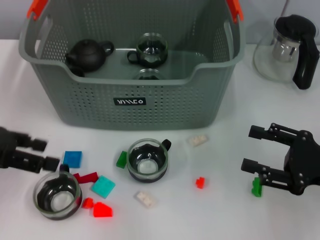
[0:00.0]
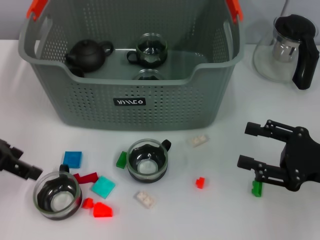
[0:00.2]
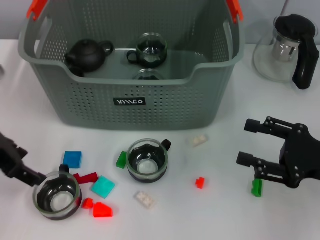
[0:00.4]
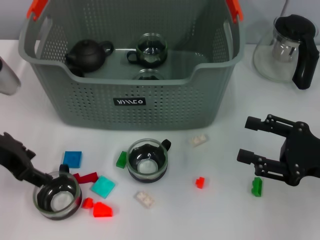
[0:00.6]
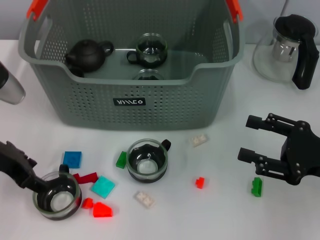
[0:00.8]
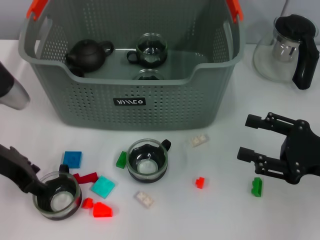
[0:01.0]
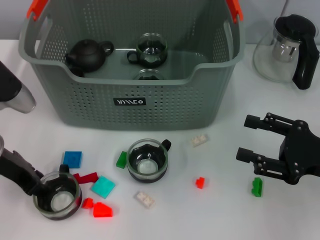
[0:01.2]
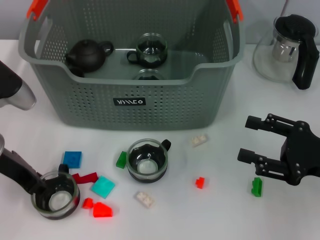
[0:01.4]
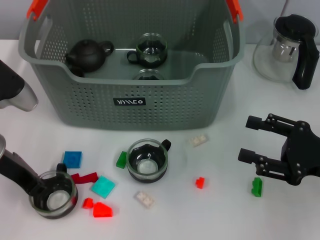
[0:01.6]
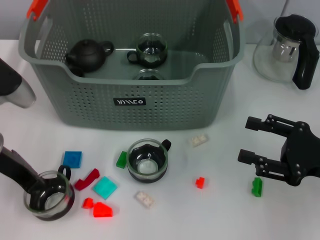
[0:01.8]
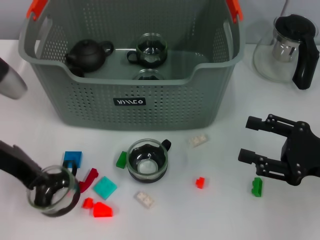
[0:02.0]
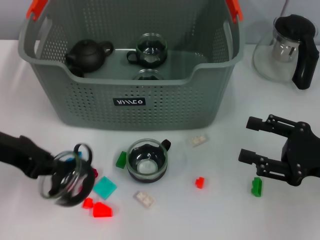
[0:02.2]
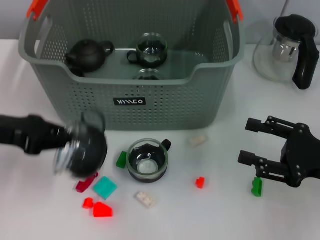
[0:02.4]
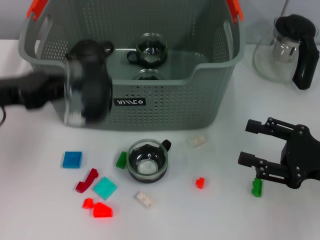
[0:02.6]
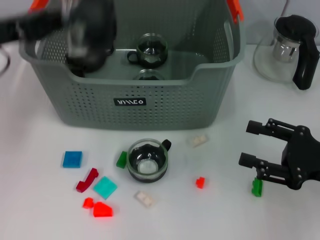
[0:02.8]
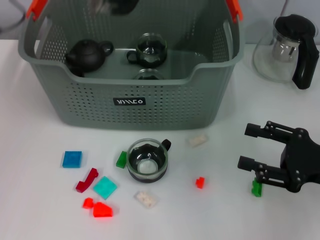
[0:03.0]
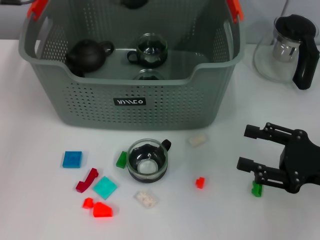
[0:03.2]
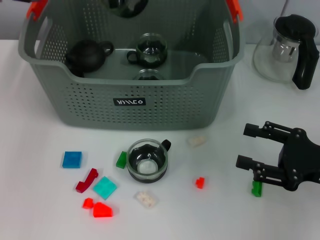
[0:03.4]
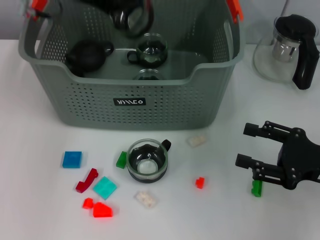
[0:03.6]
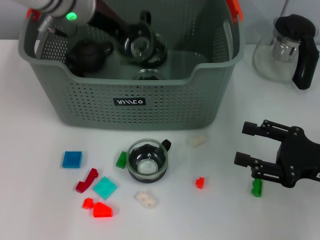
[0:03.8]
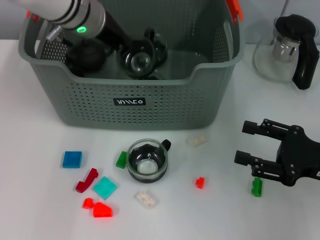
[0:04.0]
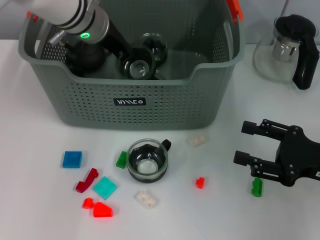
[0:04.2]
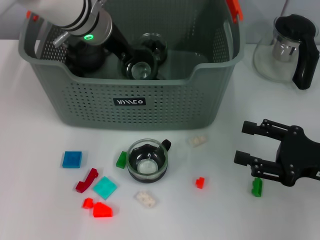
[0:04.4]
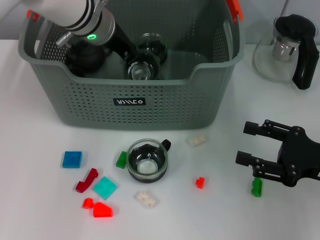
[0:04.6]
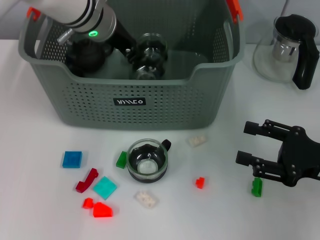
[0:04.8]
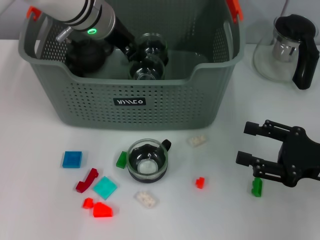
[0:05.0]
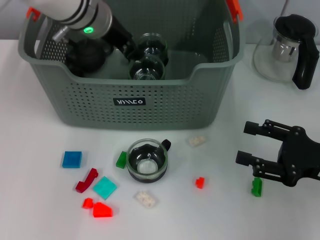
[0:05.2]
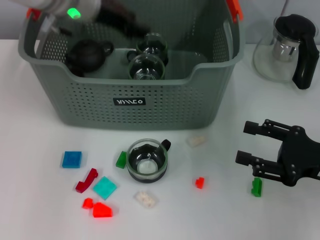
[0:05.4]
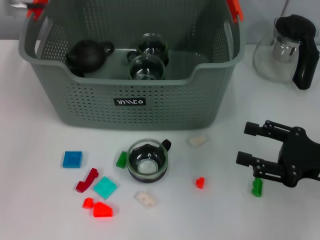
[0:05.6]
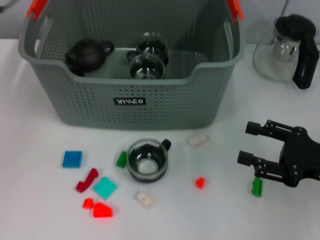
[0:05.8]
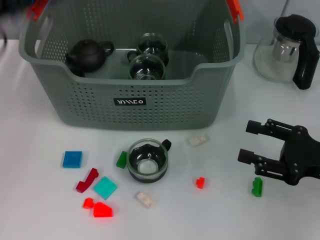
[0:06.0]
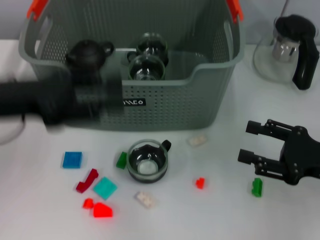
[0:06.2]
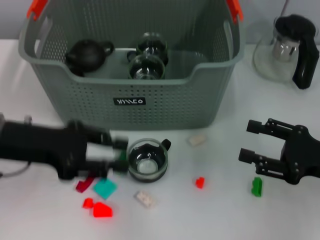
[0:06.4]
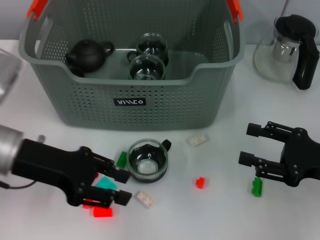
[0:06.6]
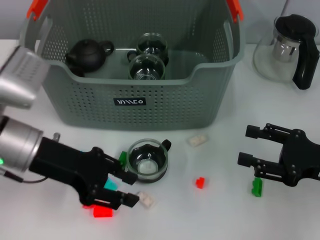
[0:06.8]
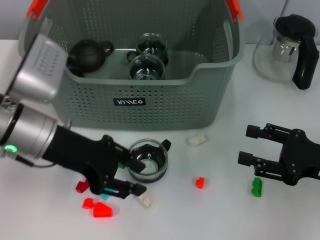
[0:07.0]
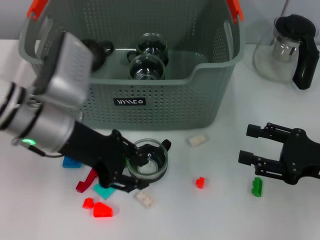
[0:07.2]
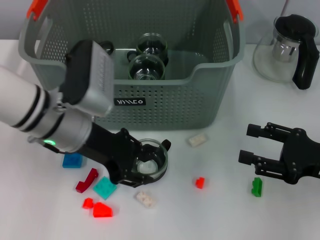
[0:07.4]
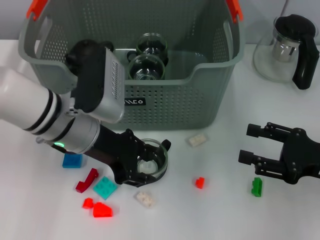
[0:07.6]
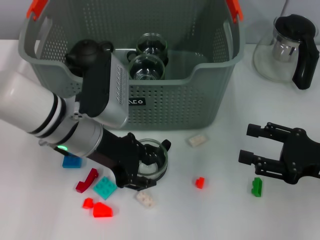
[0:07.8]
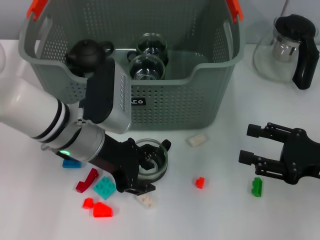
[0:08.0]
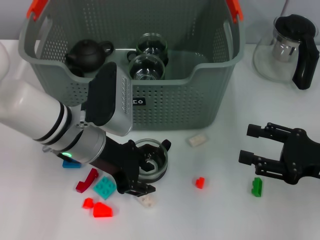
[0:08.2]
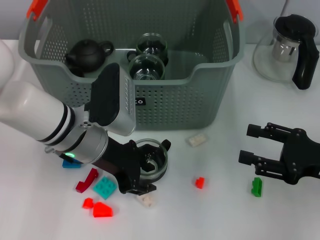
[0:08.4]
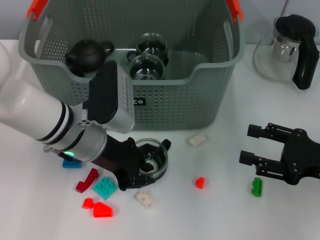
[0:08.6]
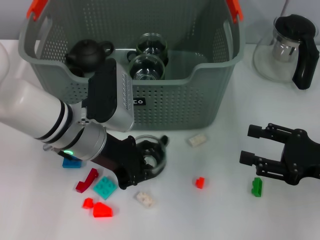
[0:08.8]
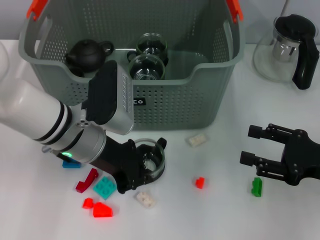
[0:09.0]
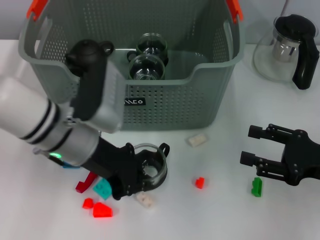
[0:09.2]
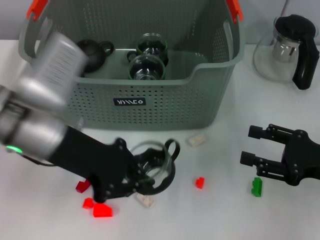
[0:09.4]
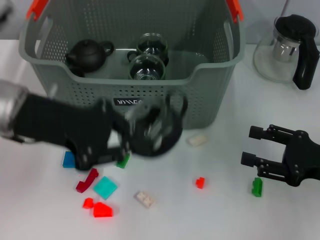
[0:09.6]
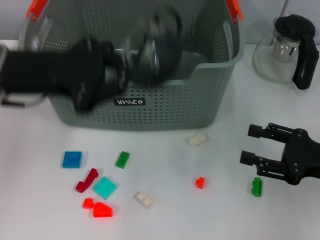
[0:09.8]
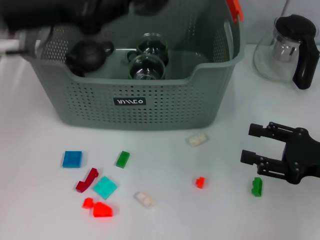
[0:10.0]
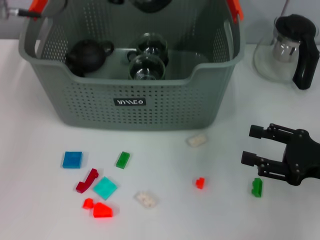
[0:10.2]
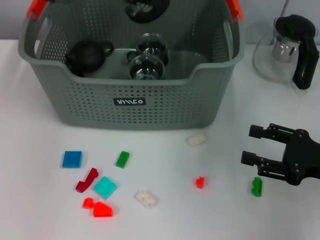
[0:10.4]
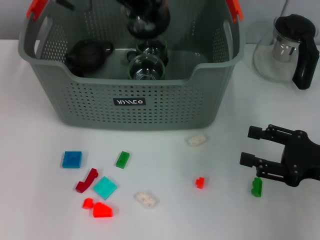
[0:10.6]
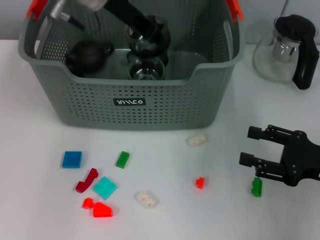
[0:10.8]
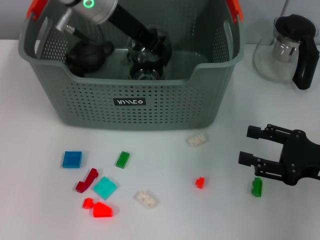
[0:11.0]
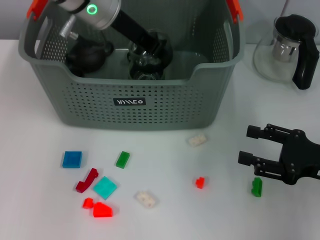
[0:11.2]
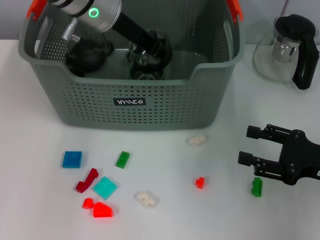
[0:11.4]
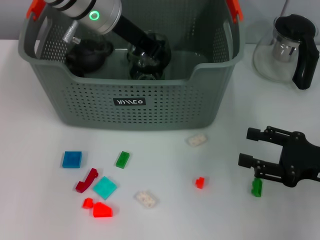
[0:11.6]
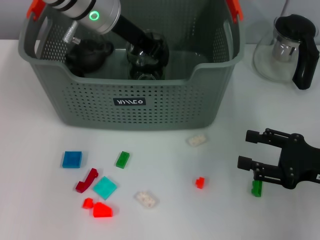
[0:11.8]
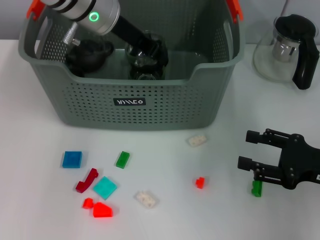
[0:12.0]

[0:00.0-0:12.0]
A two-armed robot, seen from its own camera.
Task of the whole recording: pick up the teacup on the table and place it into the storage bin, pick up the block on the table and place it into the storage bin.
Step, 0:00.0 to 0:01.6: Grasp the cup with left gripper.
Step, 0:01.8 to 0:05.6: Place the cup in the storage box with left gripper.
Step, 0:06.0 to 0:09.0: Grasp the cup with left gripper.
0:00.0 to 0:01.6: The left gripper moves to the right and downward, approximately 10 cm, and closes.
0:01.6 to 0:03.0: The left gripper heads upward and forward, covering about 15 cm, and closes.
0:03.0 to 0:04.4: The left gripper shifts some 15 cm to the right, downward and forward.
0:04.4 to 0:06.0: The left gripper heads to the left and backward, covering roughly 20 cm, and opens up.
0:06.0 to 0:07.6: The left gripper moves to the right and downward, approximately 15 cm.
0:07.6 to 0:09.0: The left gripper closes its fingers.
0:09.0 to 0:10.4: The left gripper goes some 20 cm upward and forward.
0:10.4 to 0:12.0: The left gripper moves downward, roughly 10 cm.

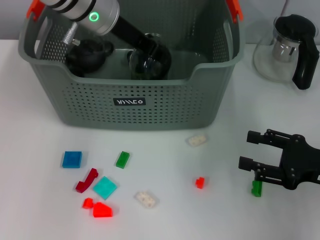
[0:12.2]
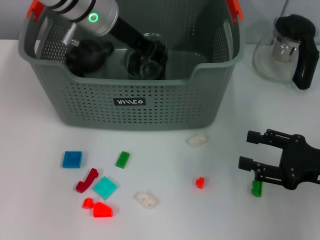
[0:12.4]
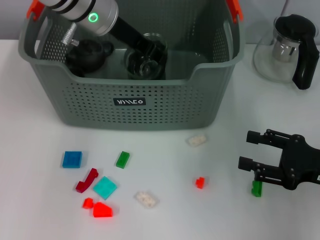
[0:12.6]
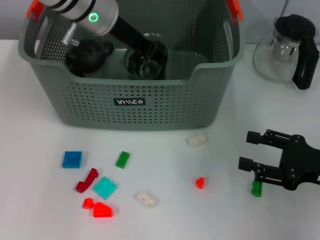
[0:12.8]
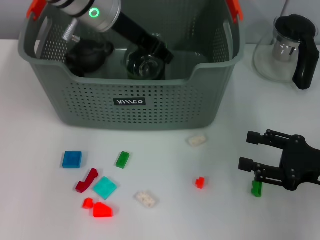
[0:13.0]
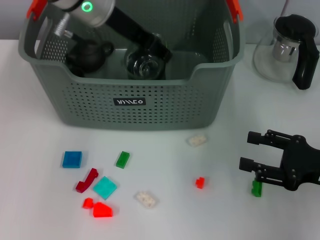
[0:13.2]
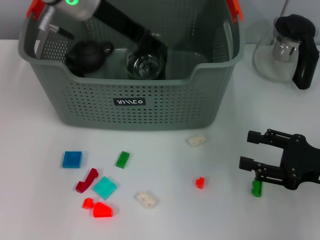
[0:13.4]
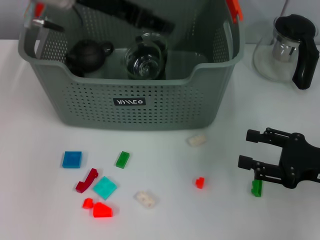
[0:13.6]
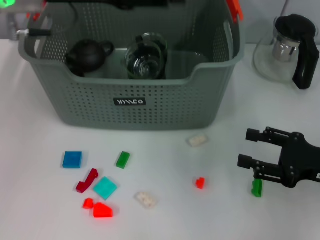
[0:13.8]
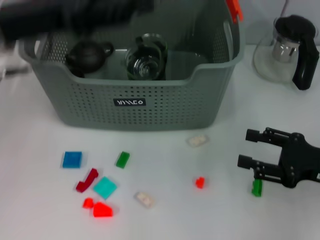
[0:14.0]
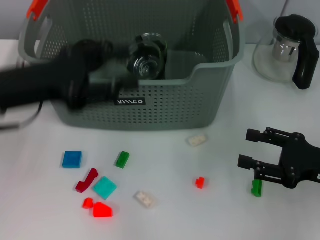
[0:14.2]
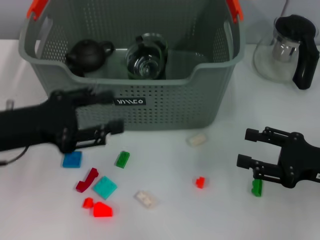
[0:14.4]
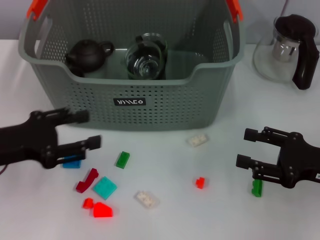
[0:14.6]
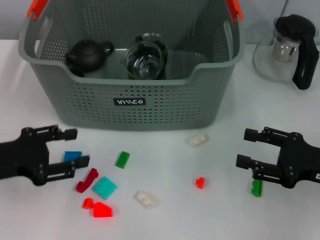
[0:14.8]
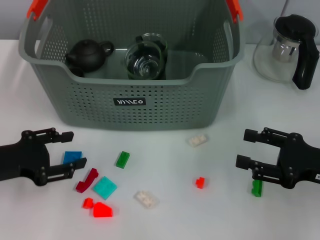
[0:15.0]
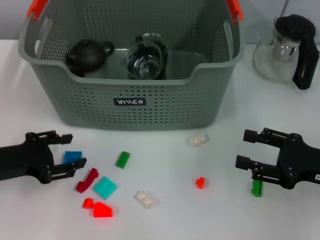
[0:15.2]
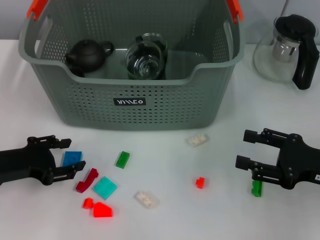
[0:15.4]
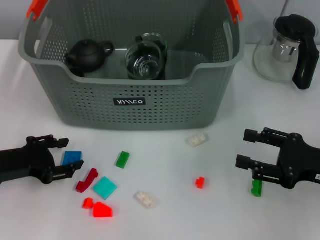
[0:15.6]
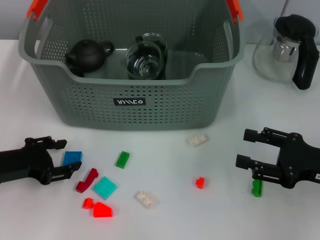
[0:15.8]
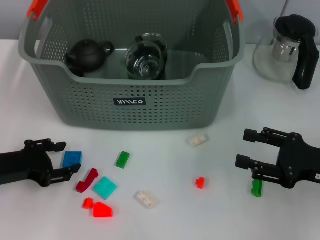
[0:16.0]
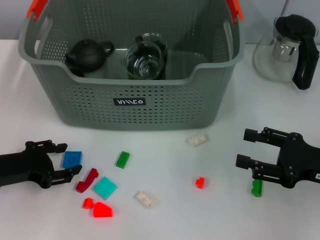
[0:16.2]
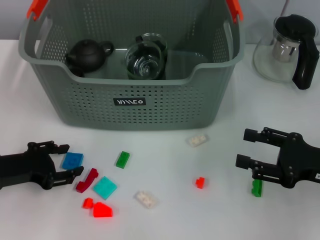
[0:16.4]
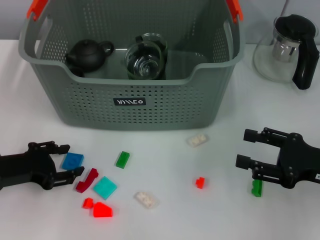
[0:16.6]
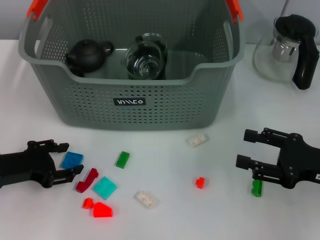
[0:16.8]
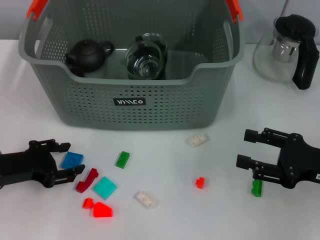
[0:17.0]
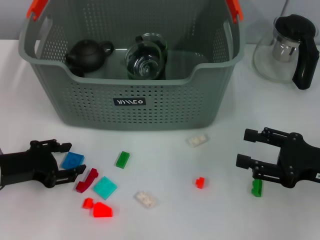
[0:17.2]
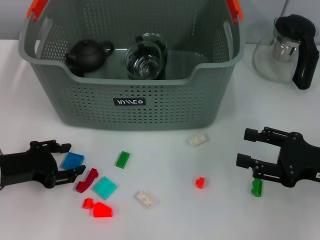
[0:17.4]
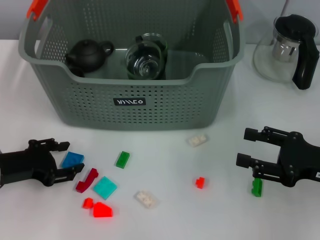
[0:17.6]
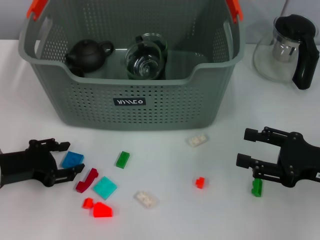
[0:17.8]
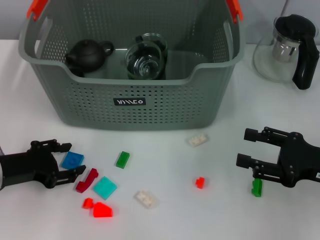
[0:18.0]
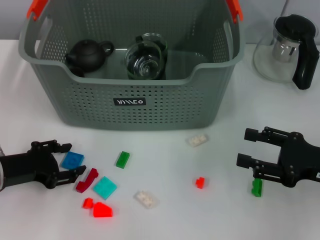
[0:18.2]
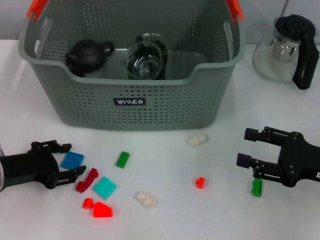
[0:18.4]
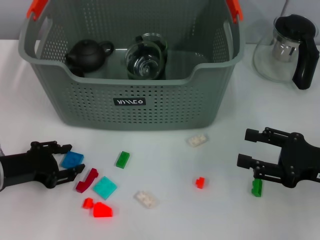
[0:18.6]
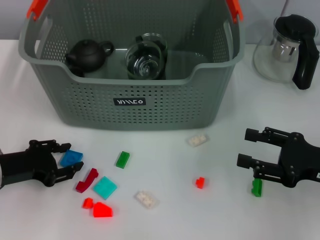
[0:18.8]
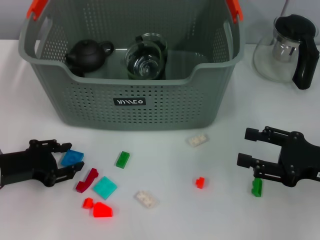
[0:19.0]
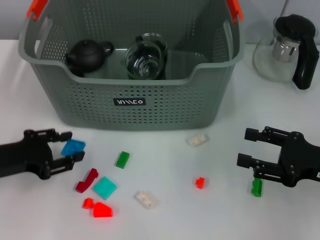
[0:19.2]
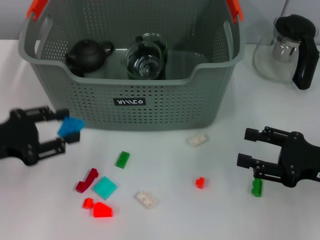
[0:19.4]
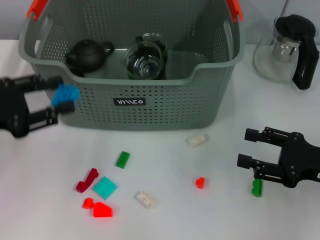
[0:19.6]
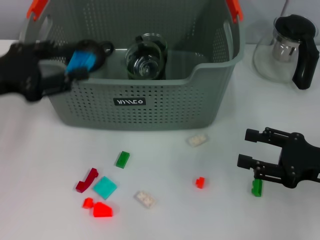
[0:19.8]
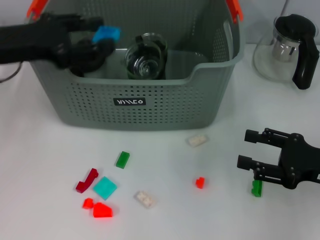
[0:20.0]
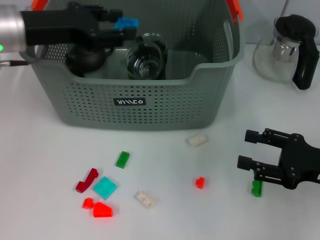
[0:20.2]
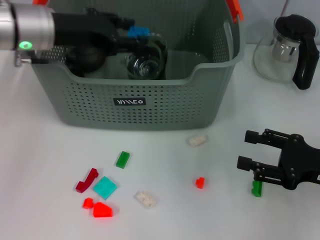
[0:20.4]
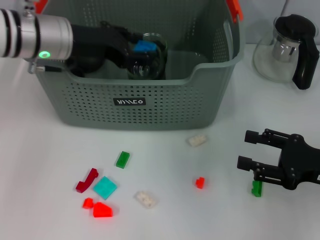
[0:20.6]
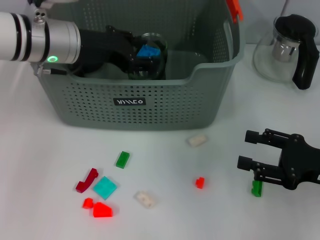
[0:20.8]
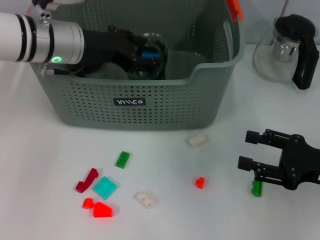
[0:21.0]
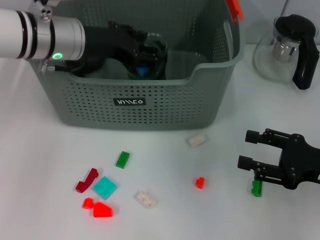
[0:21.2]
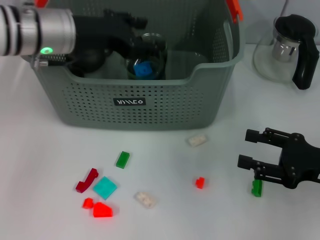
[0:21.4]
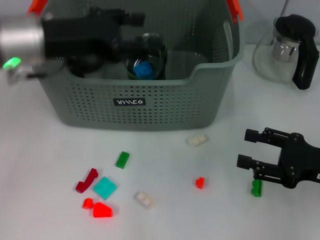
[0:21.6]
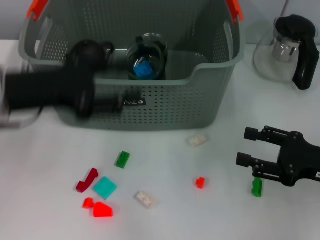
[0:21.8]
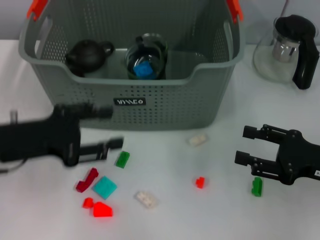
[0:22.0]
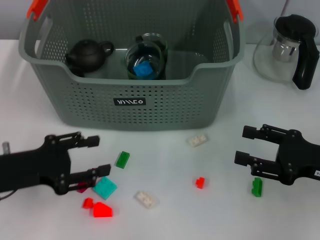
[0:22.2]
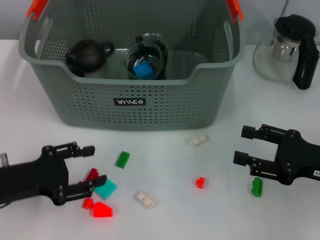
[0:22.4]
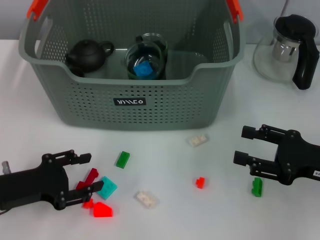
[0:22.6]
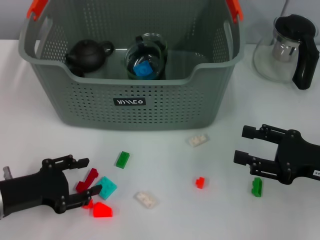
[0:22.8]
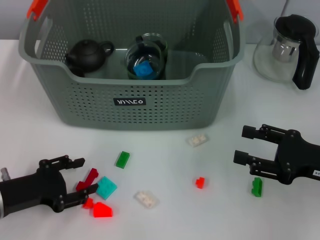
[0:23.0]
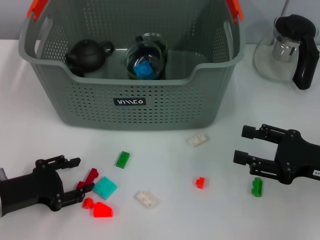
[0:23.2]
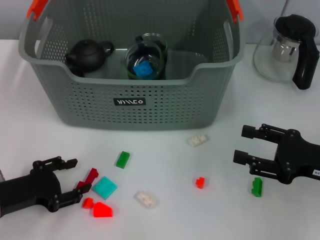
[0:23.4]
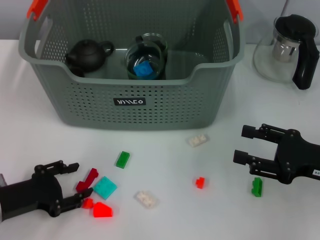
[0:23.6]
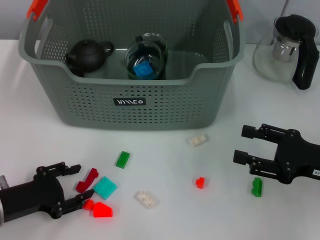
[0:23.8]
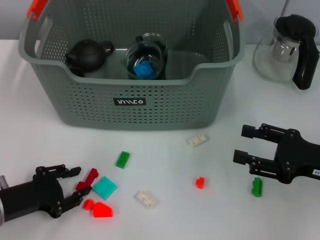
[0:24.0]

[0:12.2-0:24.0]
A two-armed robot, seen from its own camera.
Task of the whole recording: pick up the teacup on the table and place it into the storage bin, pick up the block on the table and place it into the storage bin.
Step, 0:13.8 to 0:18.8: Grasp the dark blue block with left gripper.
Step, 0:19.0 to 0:21.6: Place the dark blue block in the storage box with left gripper.
0:12.2 to 0:13.6: The left gripper shifts roughly 5 cm upward, and opens up.
0:13.6 to 0:15.2: The left gripper goes approximately 30 cm downward, backward and to the left.
0:15.2 to 0:16.6: The grippers stay close to where they were, moving slightly.
0:16.6 to 0:18.2: The two grippers keep their place.
0:18.2 to 0:19.6: The left gripper shifts approximately 10 cm upward.
0:19.6 to 0:21.0: The left gripper is displaced forward and to the right by about 20 cm.
0:21.0 to 0:22.6: The left gripper moves backward, downward and to the left, roughly 25 cm.
0:22.6 to 0:24.0: The grippers make only small movements.
